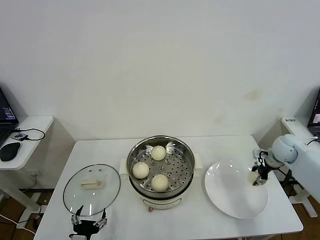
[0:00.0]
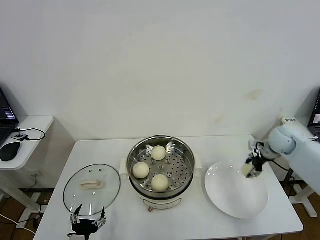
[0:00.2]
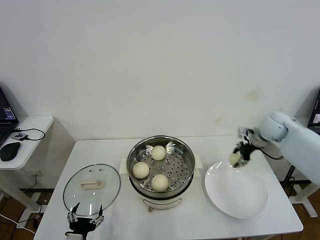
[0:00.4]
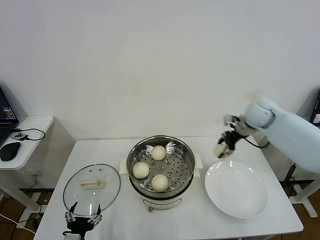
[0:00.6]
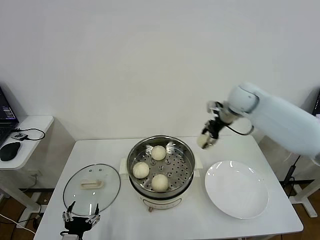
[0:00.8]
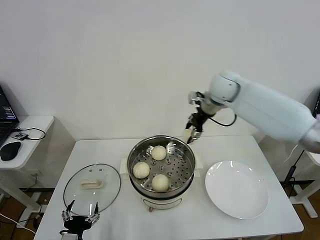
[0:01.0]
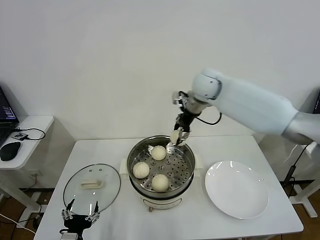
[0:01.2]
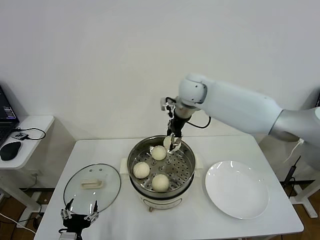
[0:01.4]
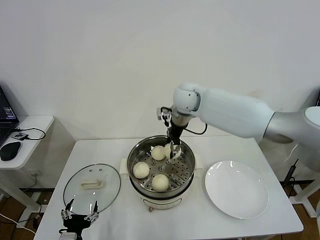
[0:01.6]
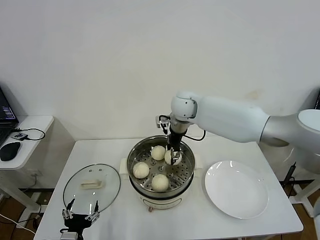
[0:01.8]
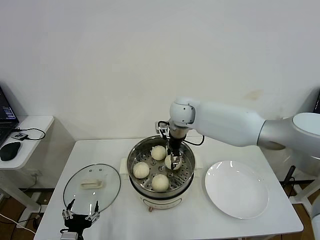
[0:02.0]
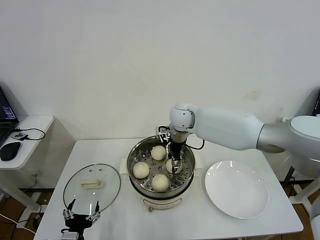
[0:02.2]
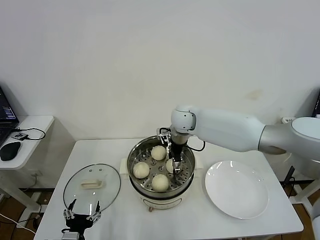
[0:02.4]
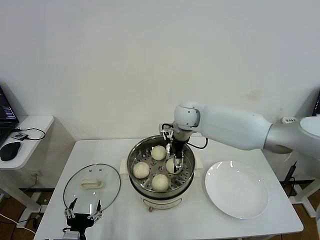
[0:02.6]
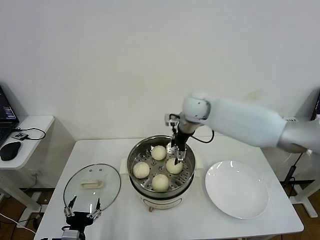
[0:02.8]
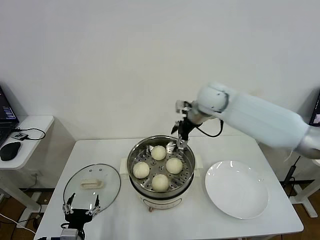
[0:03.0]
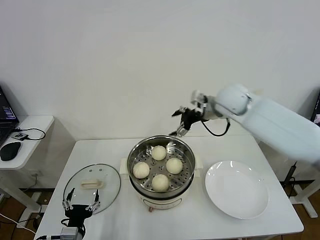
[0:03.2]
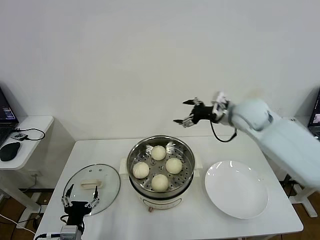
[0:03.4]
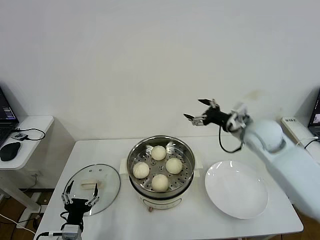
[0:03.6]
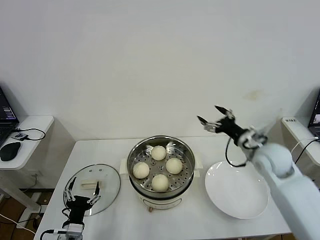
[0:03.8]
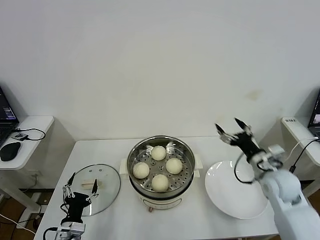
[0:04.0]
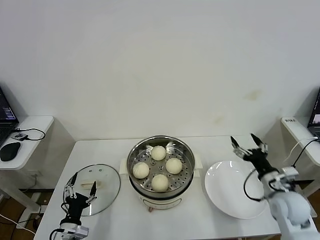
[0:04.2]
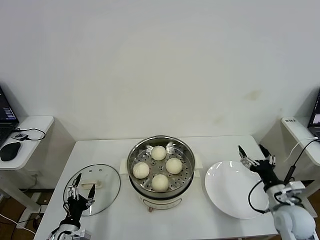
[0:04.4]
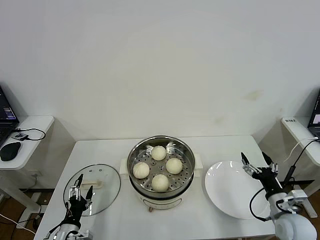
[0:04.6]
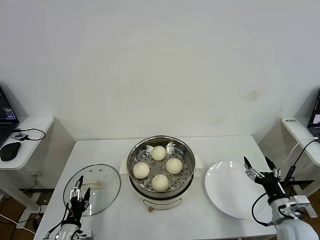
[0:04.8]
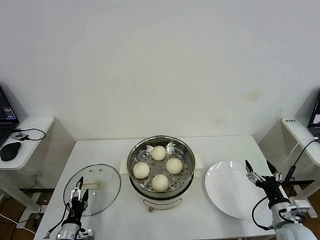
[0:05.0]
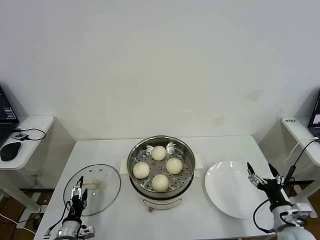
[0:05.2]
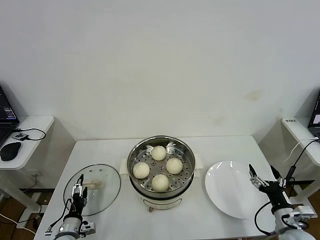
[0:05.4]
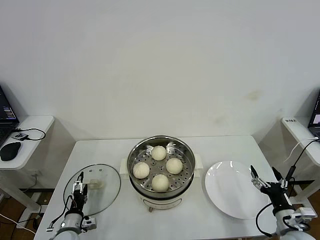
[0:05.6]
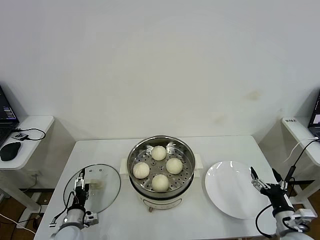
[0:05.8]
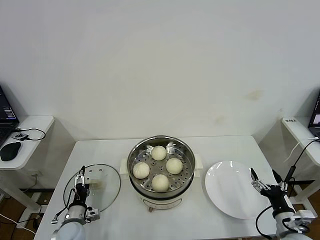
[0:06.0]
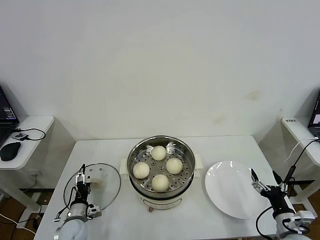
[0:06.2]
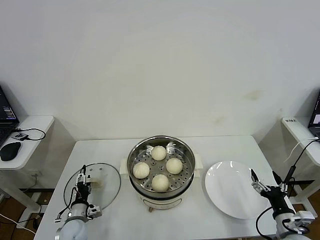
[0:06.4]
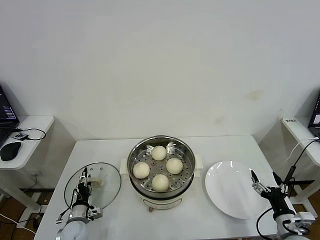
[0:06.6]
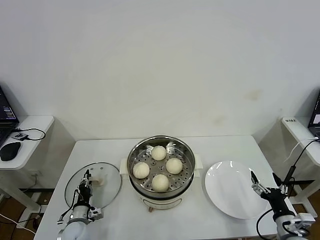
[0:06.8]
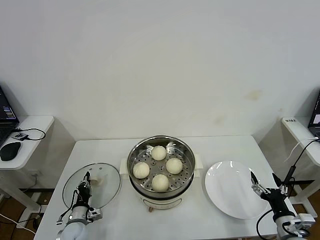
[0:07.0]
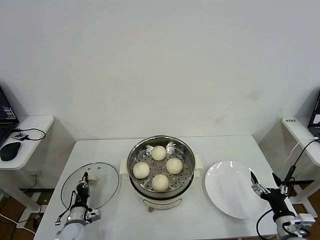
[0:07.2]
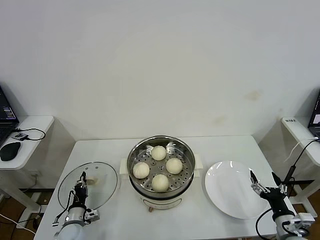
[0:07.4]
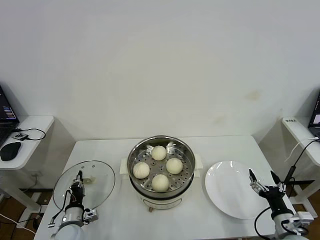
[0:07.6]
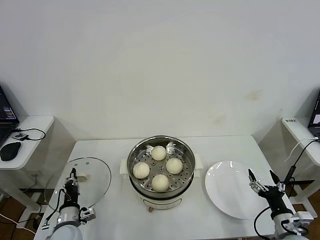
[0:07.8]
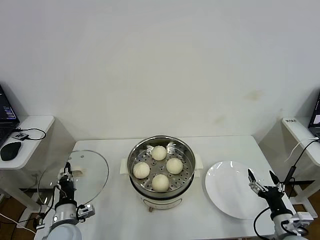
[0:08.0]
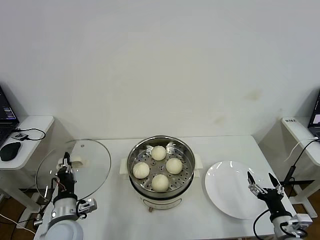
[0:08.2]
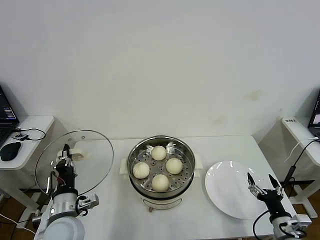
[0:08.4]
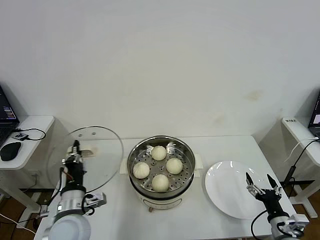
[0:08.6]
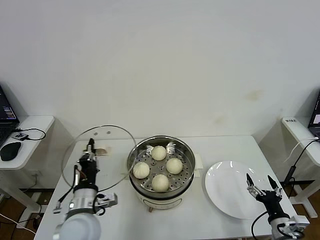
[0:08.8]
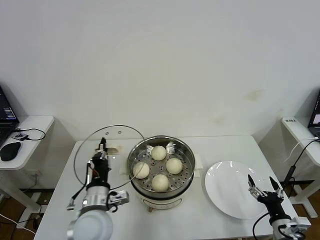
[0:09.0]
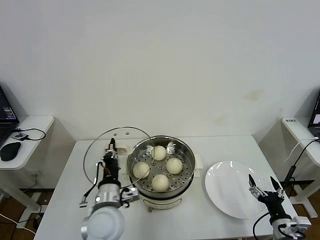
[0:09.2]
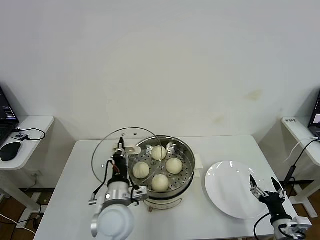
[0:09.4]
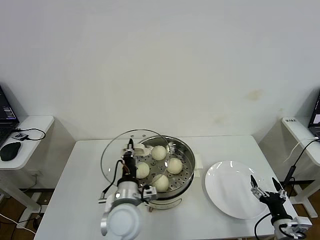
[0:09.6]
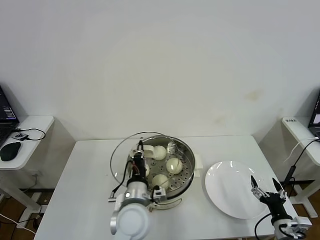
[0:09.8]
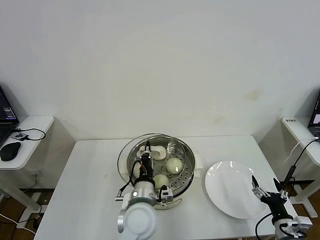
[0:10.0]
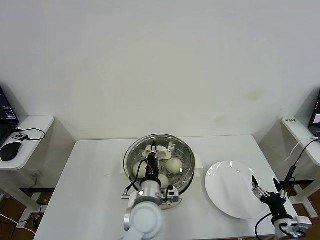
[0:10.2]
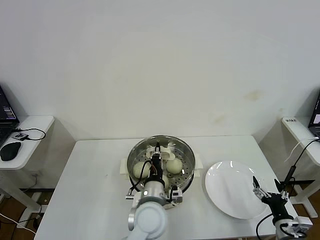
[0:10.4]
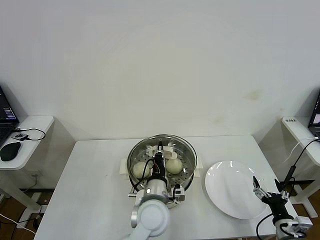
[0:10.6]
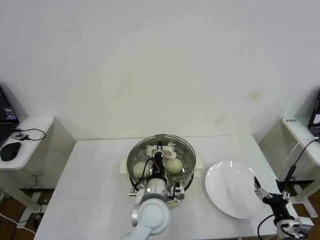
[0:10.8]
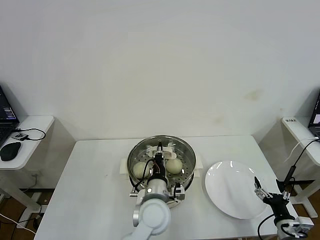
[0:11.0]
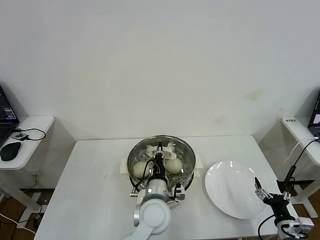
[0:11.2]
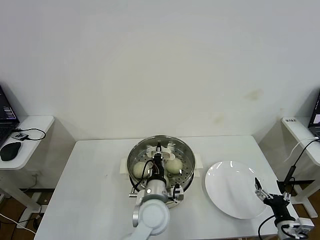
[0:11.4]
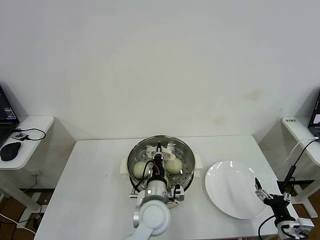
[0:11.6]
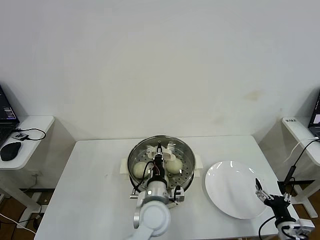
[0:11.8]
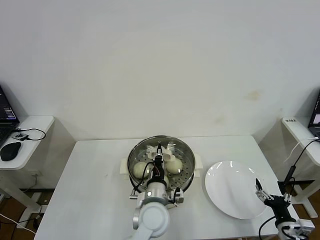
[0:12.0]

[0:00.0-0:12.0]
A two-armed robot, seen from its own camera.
Step, 0:00.0 to 0:02.4: Place the baozi on the steamer with right gripper.
Step, 0:02.6 to 0:07.2: Grasp the pot lid with left gripper.
0:00.0 to 0:01.6: The right gripper travels to the left by approximately 35 cm.
0:01.6 to 0:03.0: The right gripper shifts approximately 10 cm to the right, and opens its fingers.
0:03.0 to 0:04.4: The left gripper goes about 5 cm to the left and downward. Meanwhile the right gripper is displaced backward, downward and to the right by about 40 cm.
0:04.4 to 0:06.0: The left gripper shifts about 10 cm forward. Meanwhile the right gripper moves backward, approximately 5 cm.
0:06.0 to 0:07.6: The left gripper closes its fingers.
0:07.6 to 0:09.0: The left gripper heads upward and to the right, covering some 25 cm.
0:09.0 to 0:10.4: The left gripper heads to the right, covering approximately 15 cm.
0:10.4 to 0:12.0: There are only small adjustments of the grippers.

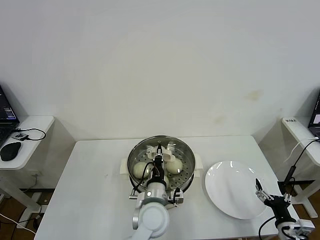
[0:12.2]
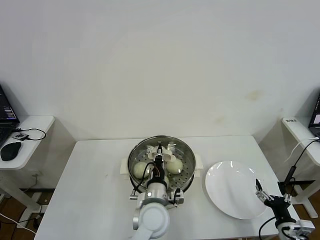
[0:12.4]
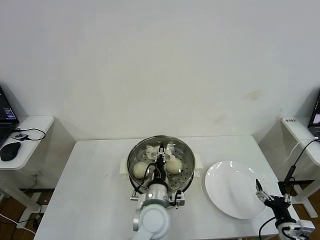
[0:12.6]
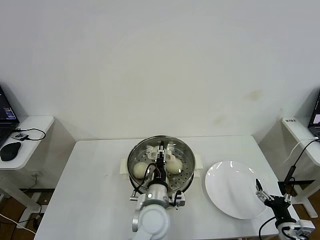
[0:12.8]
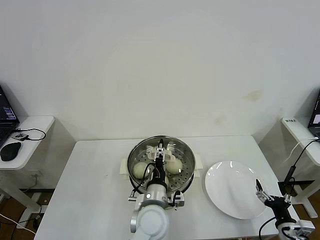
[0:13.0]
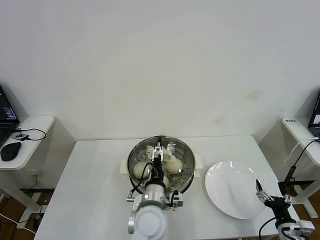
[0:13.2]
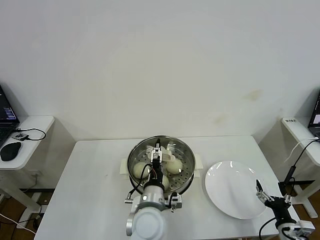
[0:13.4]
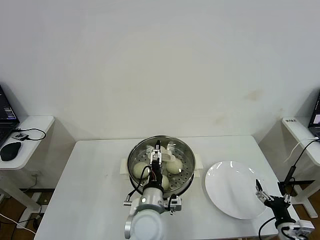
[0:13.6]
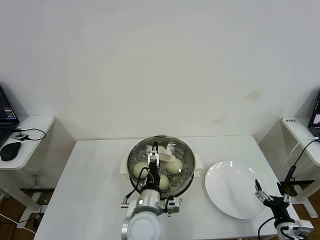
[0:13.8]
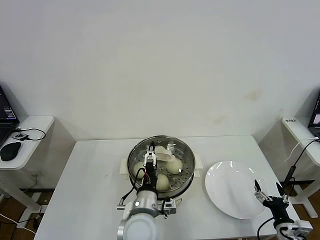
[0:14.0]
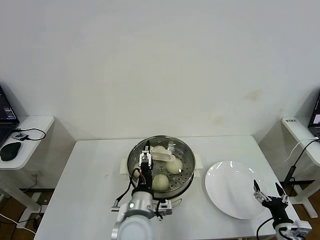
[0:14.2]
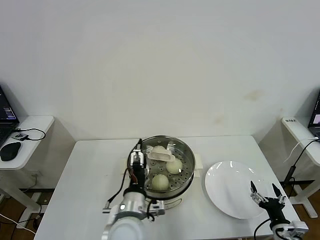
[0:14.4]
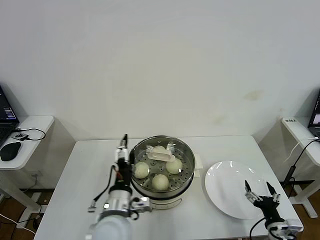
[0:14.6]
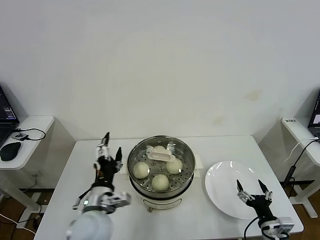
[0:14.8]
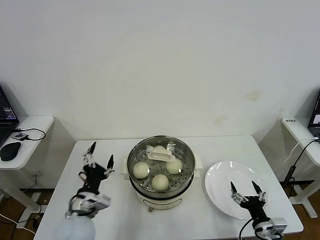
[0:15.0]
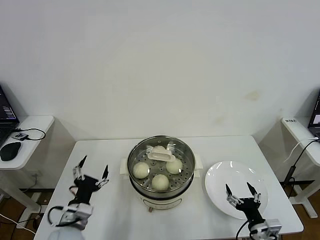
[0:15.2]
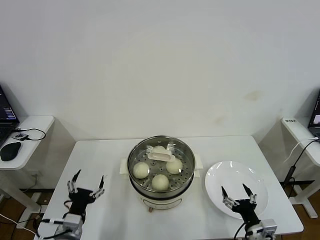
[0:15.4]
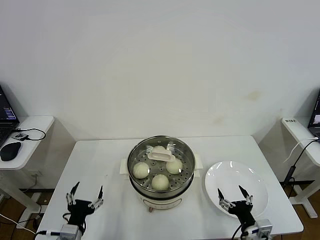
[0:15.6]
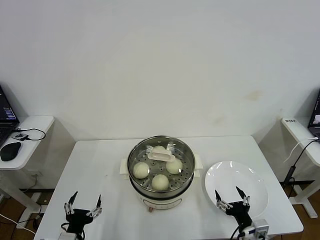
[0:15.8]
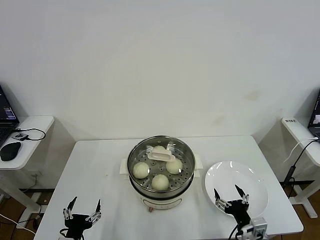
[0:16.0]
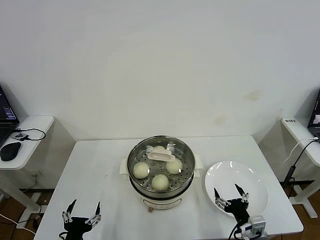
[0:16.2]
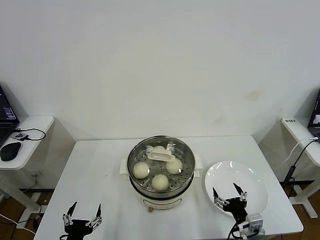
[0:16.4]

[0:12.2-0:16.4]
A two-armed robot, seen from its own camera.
0:12.2 to 0:13.6: The left gripper opens.
0:13.6 to 0:15.0: The right gripper travels to the left by approximately 5 cm, while the left gripper travels to the left by some 20 cm.
0:15.0 to 0:16.4: The right gripper shifts approximately 5 cm to the left. Meanwhile the left gripper shifts some 15 cm backward and downward.

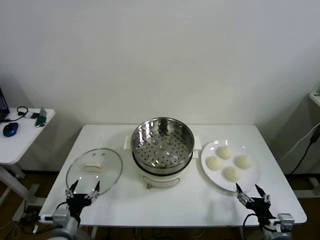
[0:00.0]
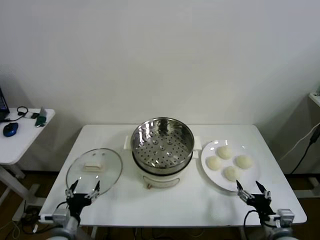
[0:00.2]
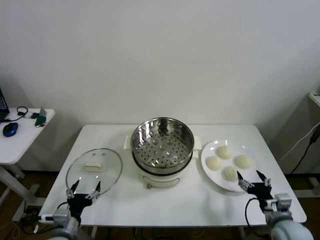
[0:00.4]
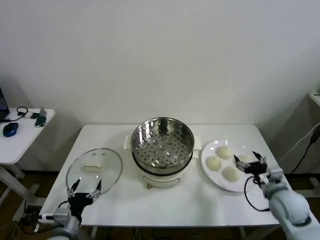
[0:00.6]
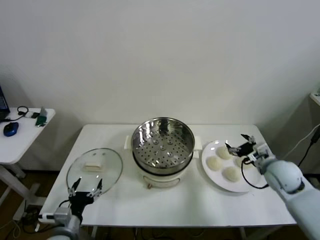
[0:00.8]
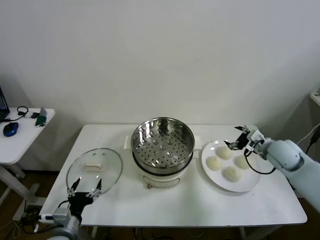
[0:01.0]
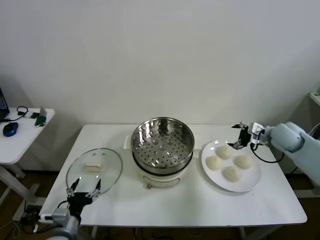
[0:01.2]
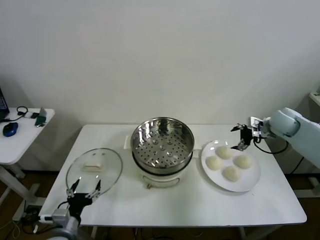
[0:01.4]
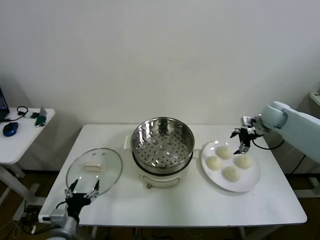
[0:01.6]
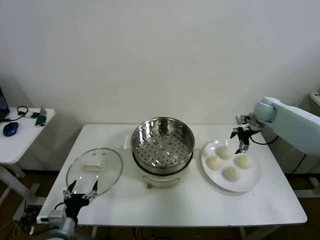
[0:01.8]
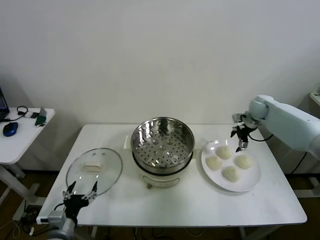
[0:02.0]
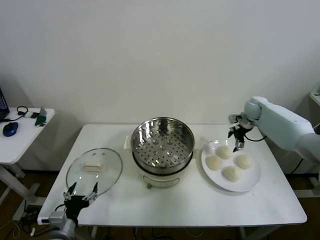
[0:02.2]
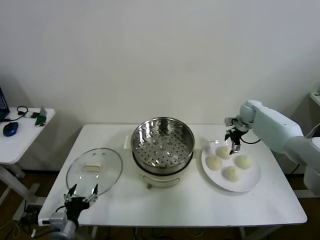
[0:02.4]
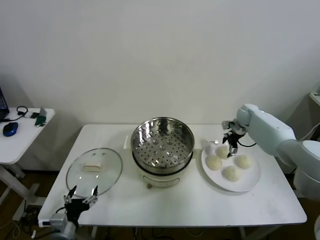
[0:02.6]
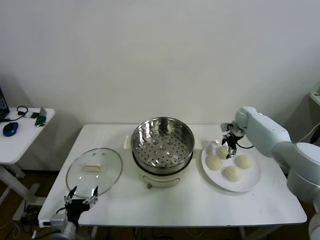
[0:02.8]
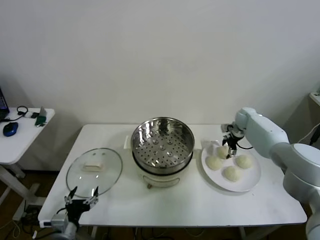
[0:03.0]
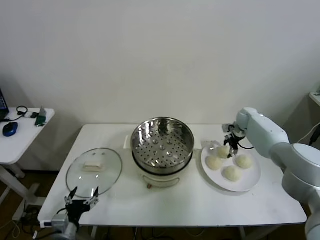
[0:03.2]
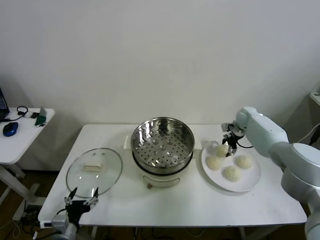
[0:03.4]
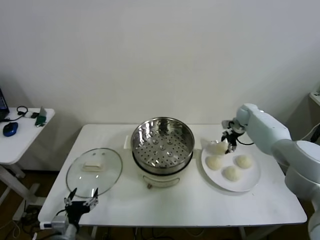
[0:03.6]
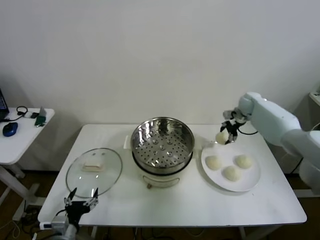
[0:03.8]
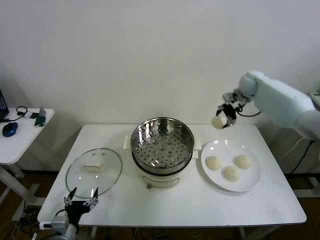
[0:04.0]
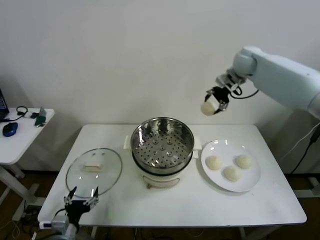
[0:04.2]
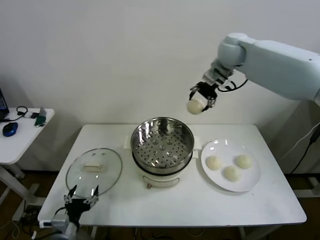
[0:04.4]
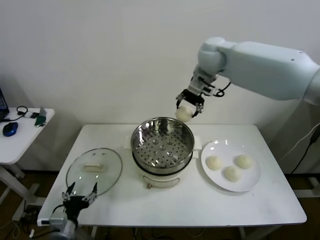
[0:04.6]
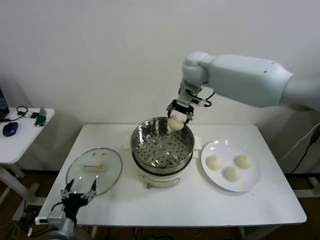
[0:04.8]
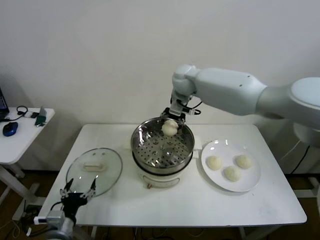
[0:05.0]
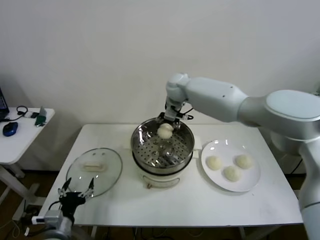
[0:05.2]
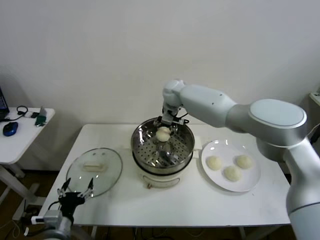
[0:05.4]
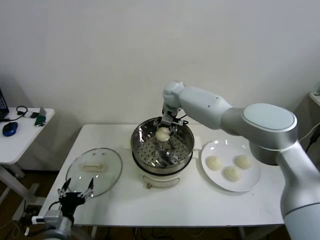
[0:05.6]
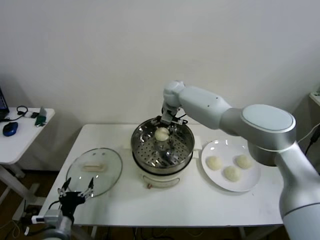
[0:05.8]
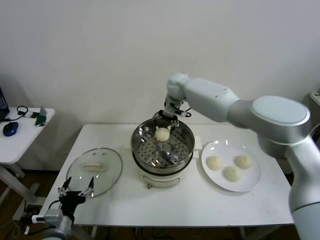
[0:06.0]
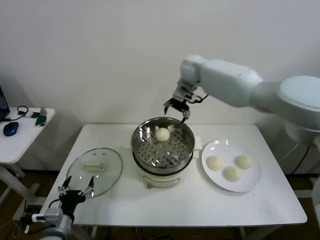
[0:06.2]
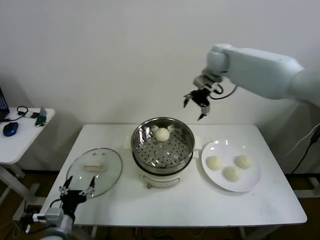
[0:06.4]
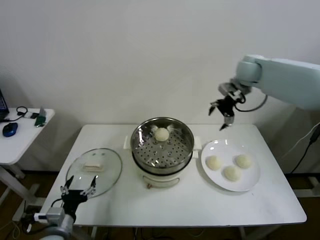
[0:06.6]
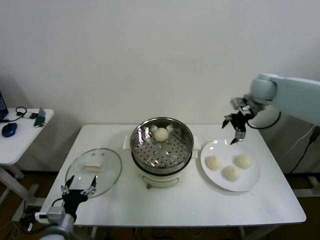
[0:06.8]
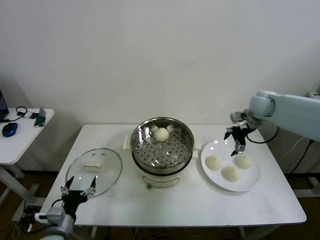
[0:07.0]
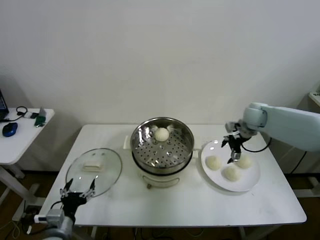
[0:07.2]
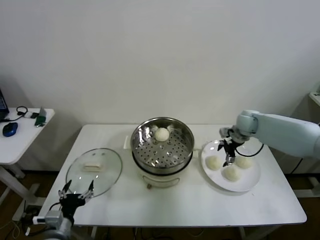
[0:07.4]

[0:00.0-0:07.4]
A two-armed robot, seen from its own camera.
Step, 0:00.0 to 0:03.2: Grasp the baozi in the plate with right gripper.
Step, 0:03.4 to 0:05.8: Place the baozi on the steamer with right gripper.
0:01.4 to 0:03.0: The right gripper travels forward and downward by some 15 cm.
0:03.0 to 0:04.4: The right gripper goes some 35 cm upward and to the left, and closes up.
0:04.4 to 0:06.0: The right gripper is displaced downward, to the left and forward by approximately 15 cm, and opens.
0:06.0 to 0:07.4: The right gripper moves to the right and downward, approximately 30 cm.
